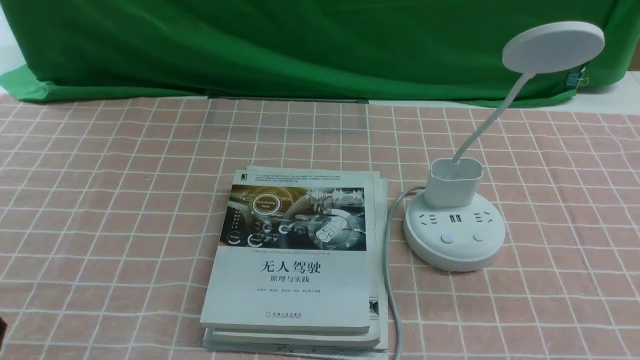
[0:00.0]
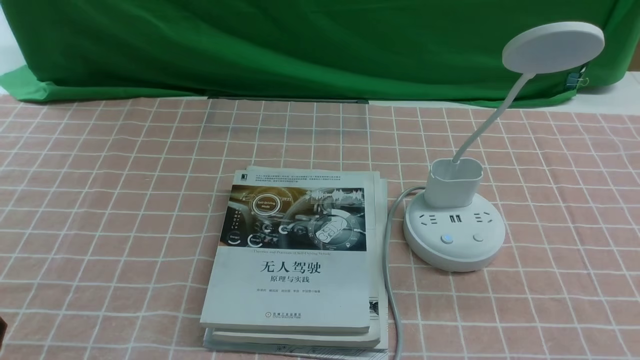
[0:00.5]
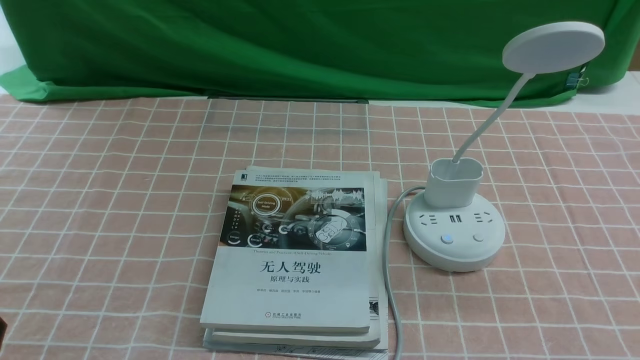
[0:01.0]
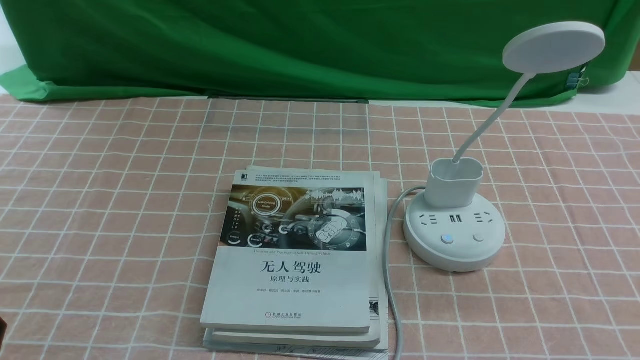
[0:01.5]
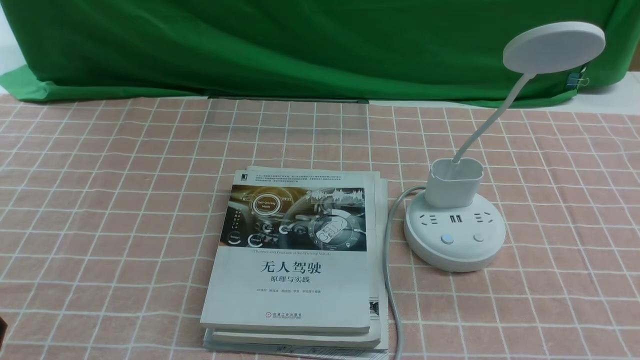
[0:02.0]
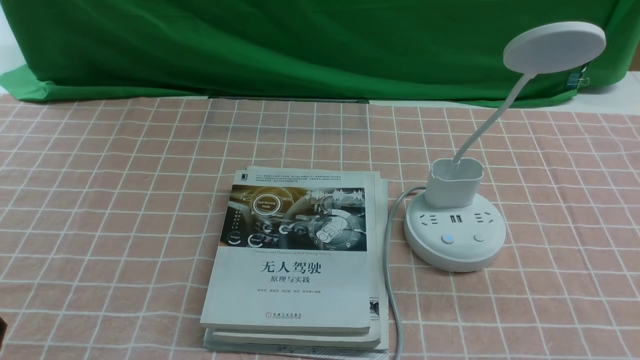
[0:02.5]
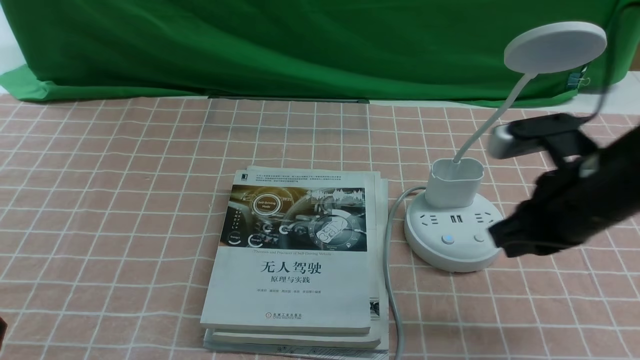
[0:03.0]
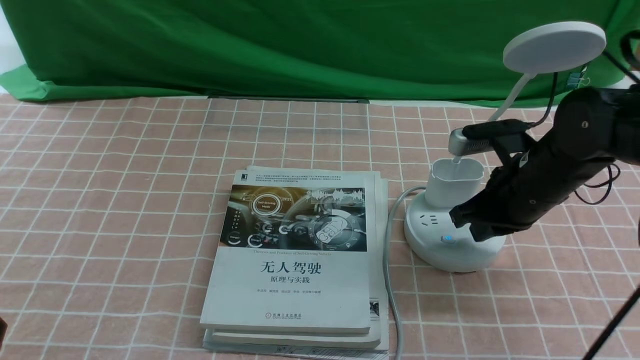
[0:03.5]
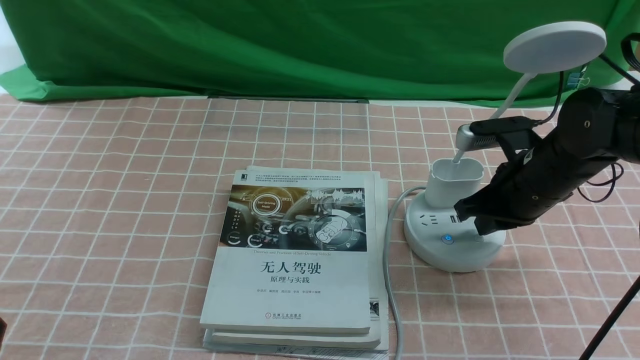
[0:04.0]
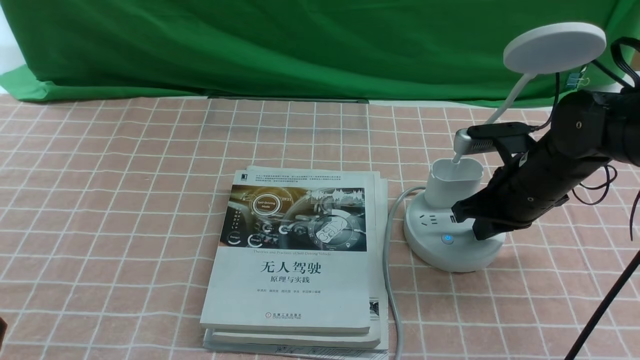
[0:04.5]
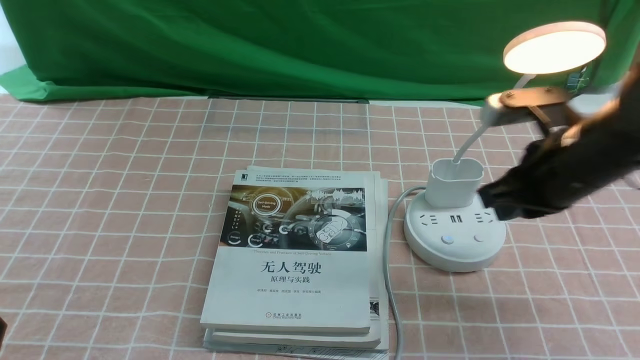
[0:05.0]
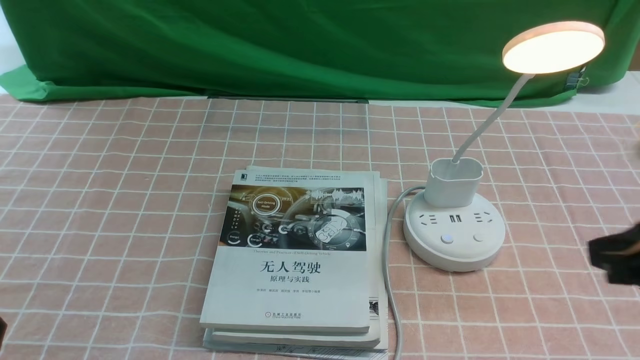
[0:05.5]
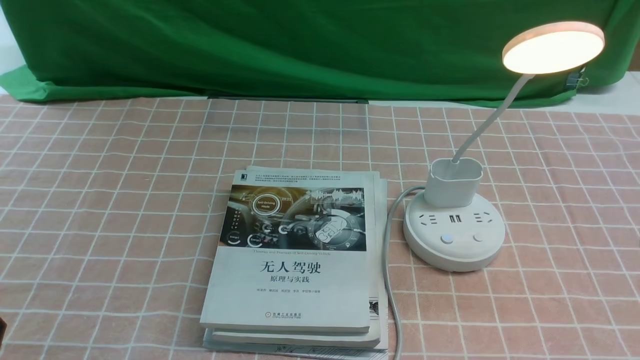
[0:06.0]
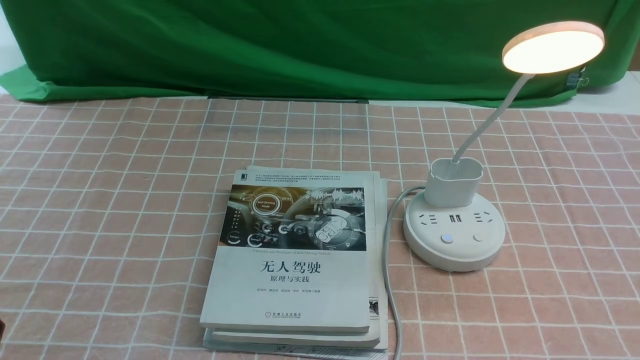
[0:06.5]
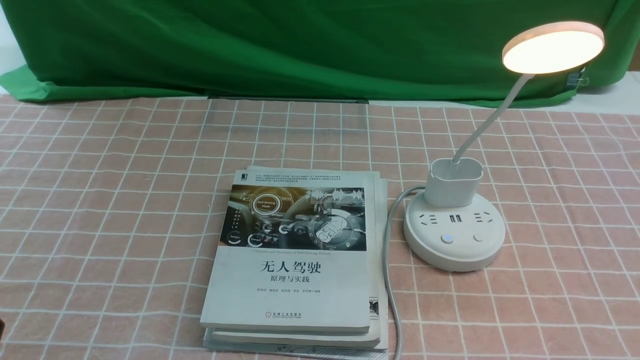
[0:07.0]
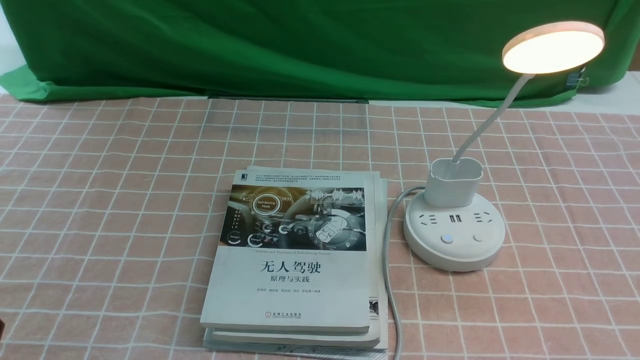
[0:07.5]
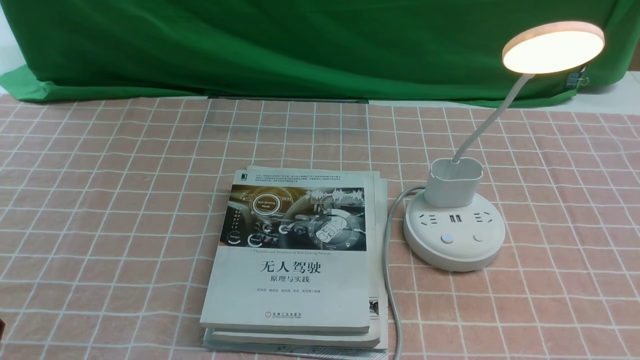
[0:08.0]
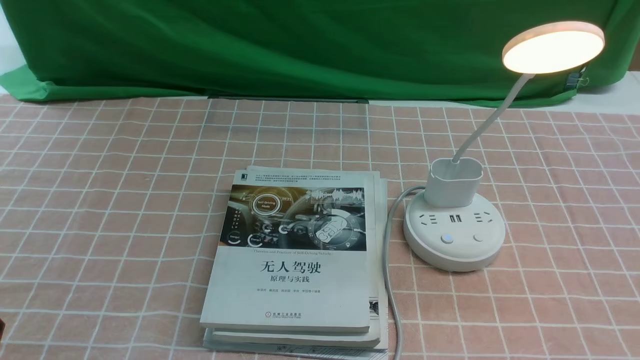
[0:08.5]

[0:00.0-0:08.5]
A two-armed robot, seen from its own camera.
Step, 0:00.0 to 0:05.0: use the right arm to press the button switch on the lamp holder.
0:02.0 to 0:04.0: The right gripper moves forward, roughly 25 cm.
0:04.0 to 0:06.5: The right gripper travels backward by approximately 30 cm.

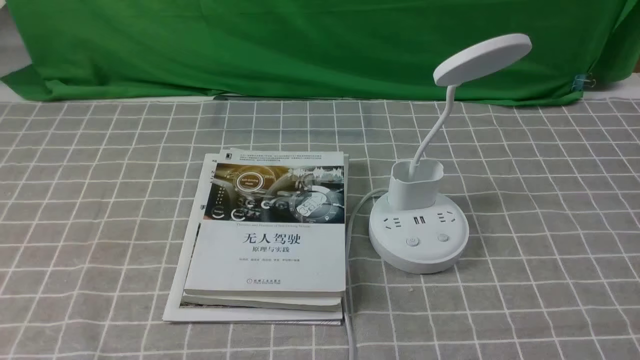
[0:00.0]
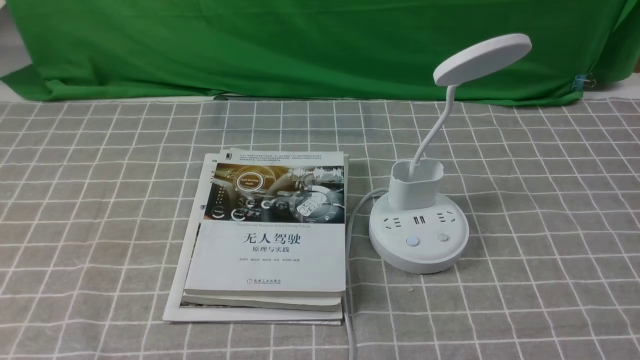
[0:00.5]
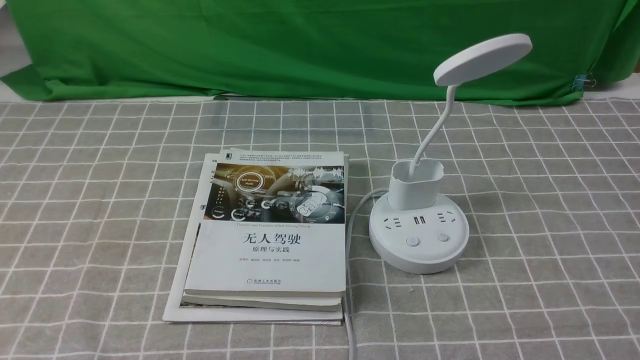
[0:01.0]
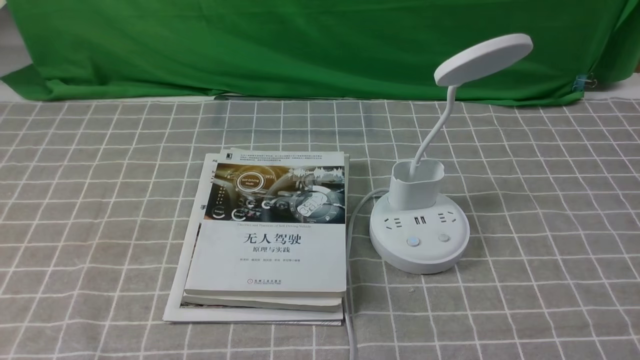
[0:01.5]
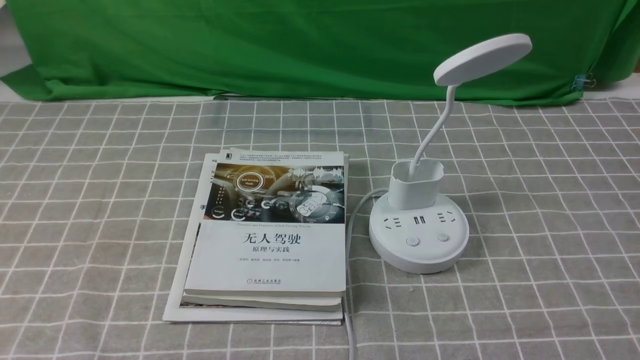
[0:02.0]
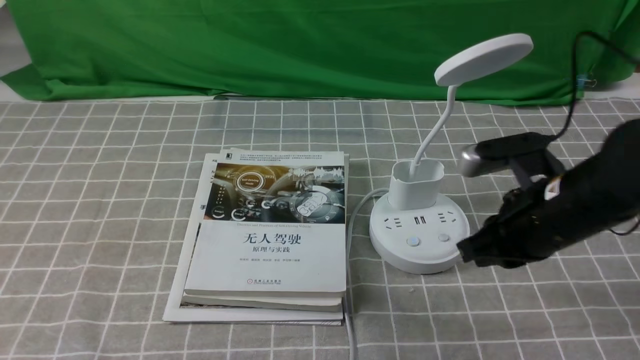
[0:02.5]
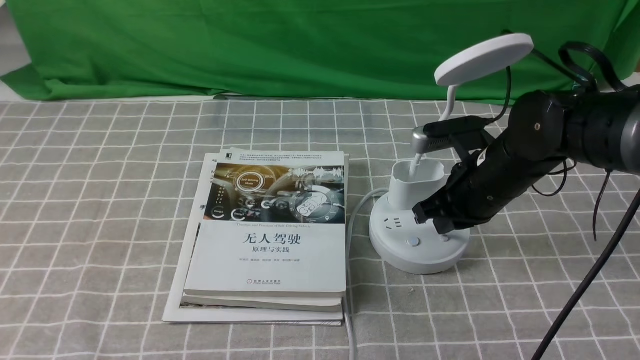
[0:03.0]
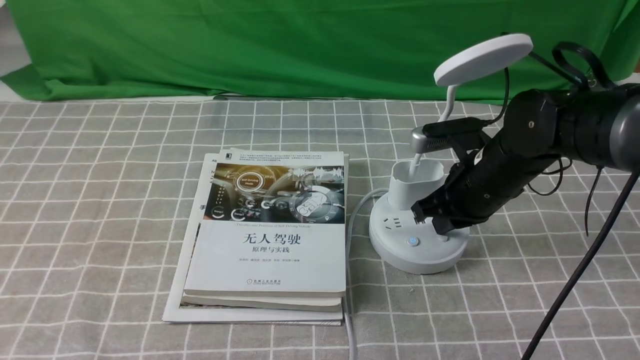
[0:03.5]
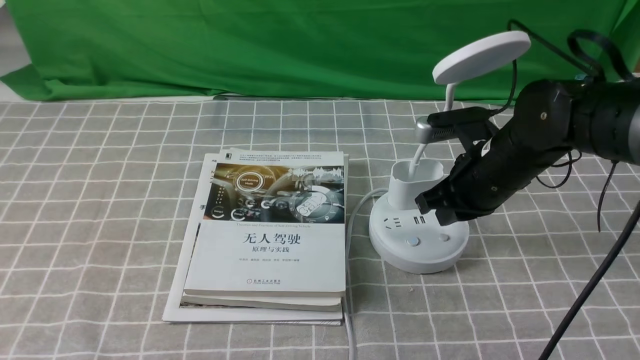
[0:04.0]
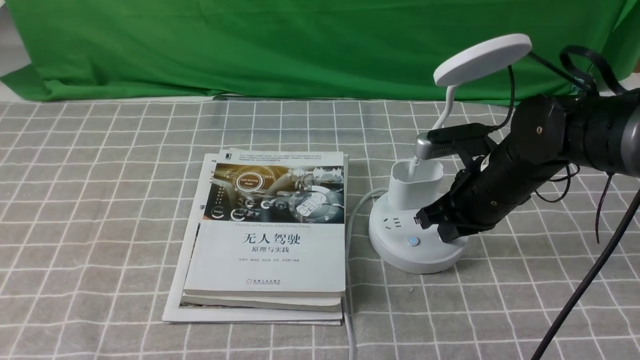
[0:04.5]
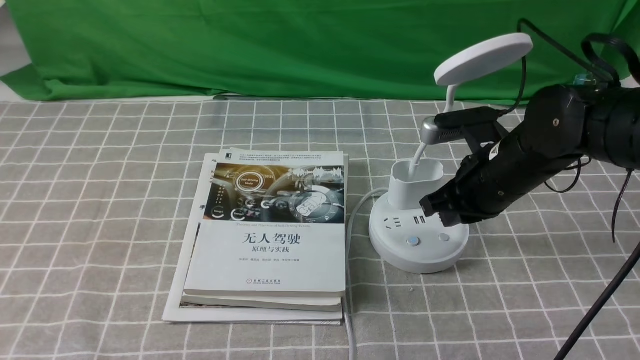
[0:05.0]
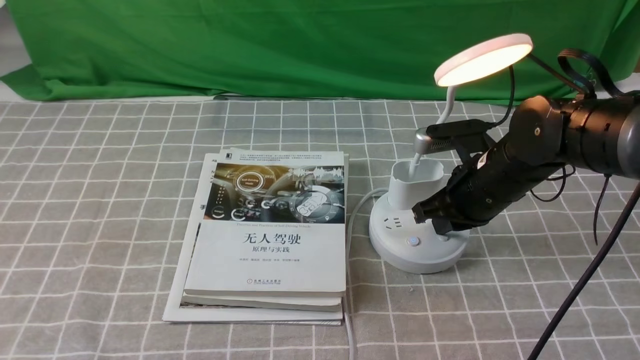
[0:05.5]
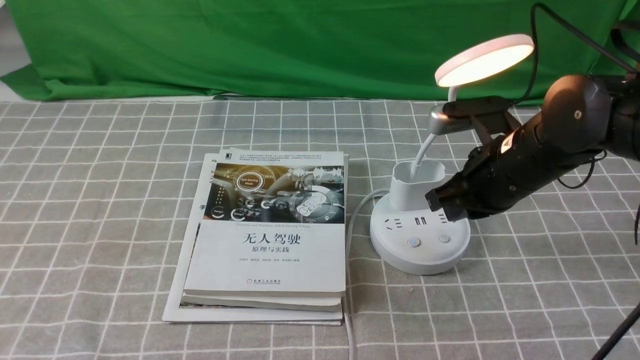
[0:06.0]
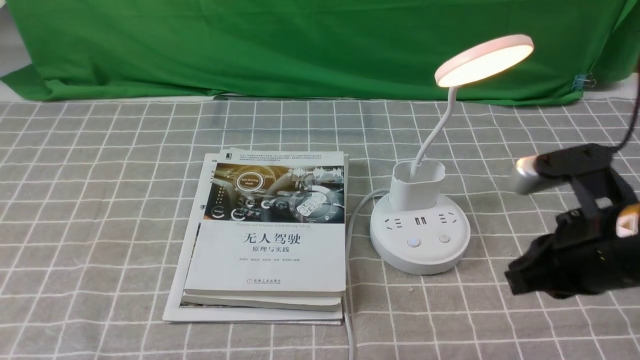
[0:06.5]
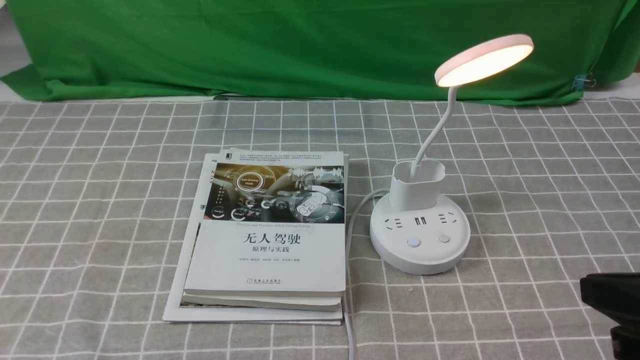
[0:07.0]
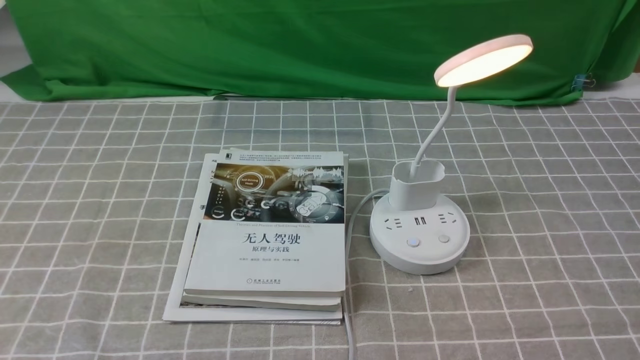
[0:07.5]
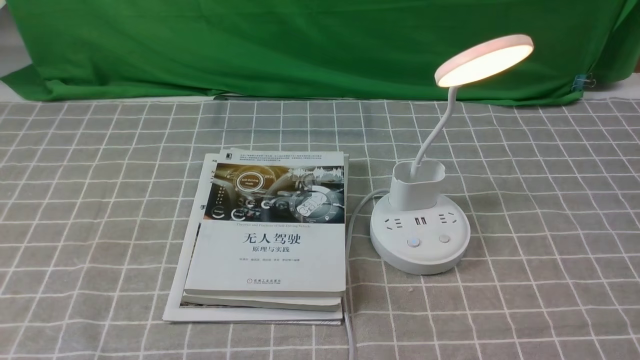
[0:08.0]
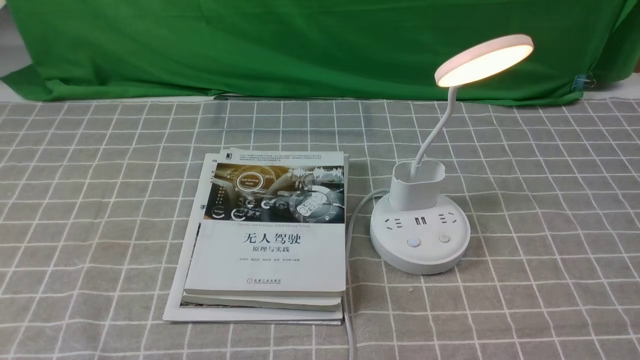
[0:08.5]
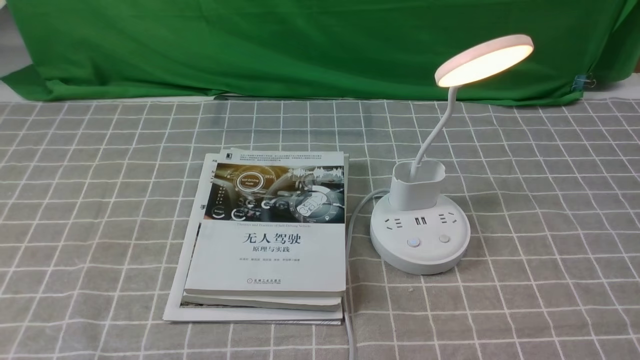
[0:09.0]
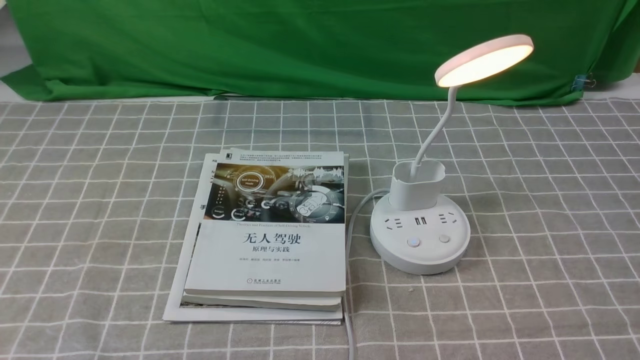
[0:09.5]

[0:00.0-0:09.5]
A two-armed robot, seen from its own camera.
Step, 0:00.0 to 0:05.5: use the right arm to press the button switch on the lamp holder.
0:02.0 to 0:04.0: The right gripper shifts approximately 25 cm forward, to the left and downward.
0:04.0 to 0:05.5: The two grippers keep their place.
0:05.5 to 0:07.5: The right gripper moves backward and to the right, approximately 30 cm.
